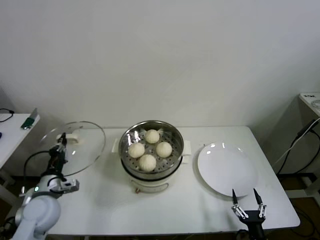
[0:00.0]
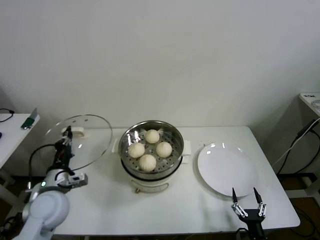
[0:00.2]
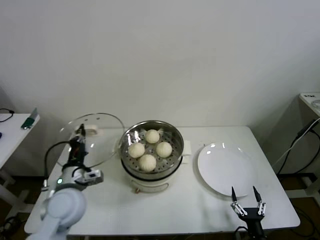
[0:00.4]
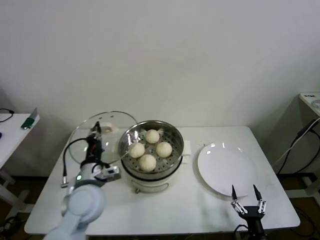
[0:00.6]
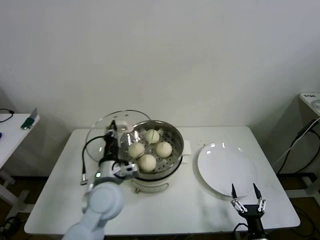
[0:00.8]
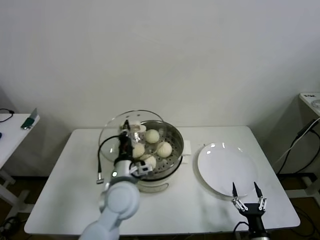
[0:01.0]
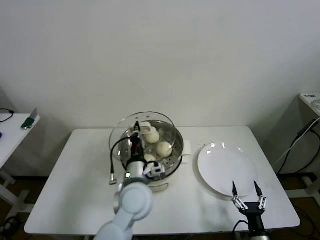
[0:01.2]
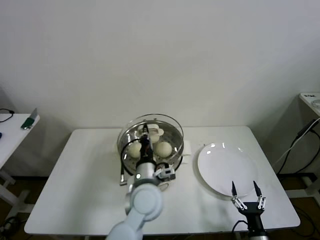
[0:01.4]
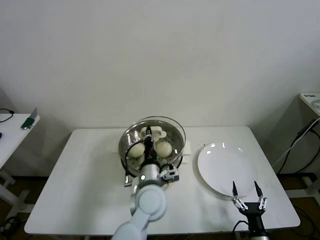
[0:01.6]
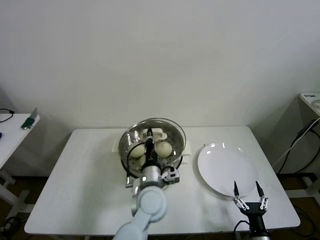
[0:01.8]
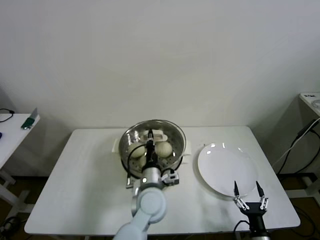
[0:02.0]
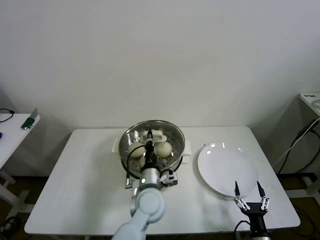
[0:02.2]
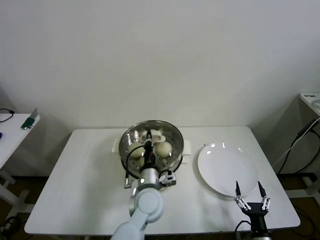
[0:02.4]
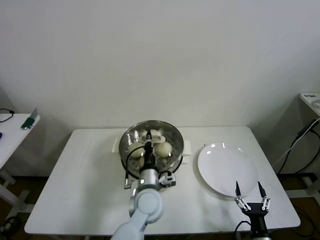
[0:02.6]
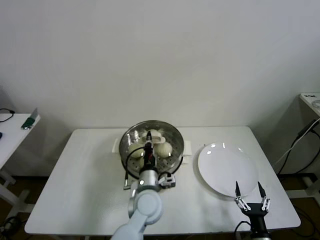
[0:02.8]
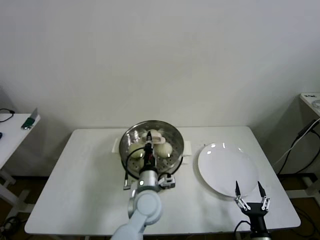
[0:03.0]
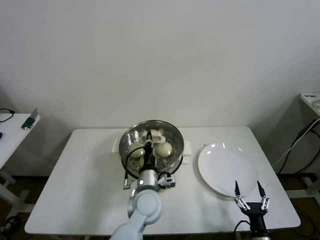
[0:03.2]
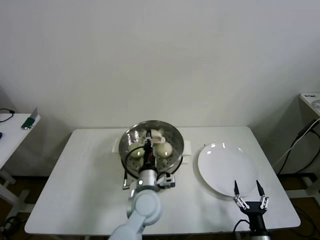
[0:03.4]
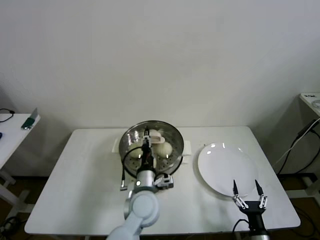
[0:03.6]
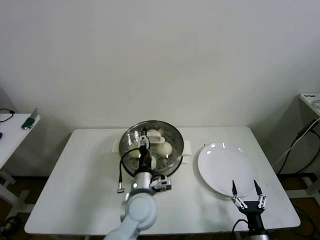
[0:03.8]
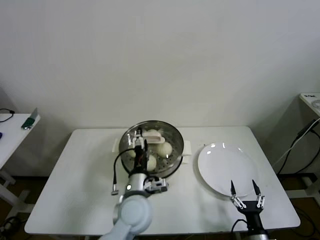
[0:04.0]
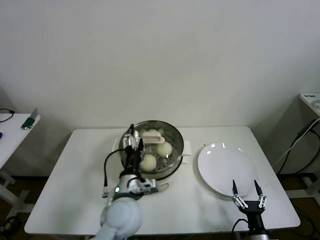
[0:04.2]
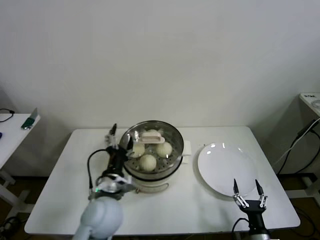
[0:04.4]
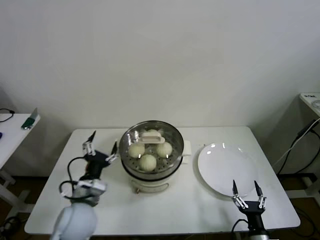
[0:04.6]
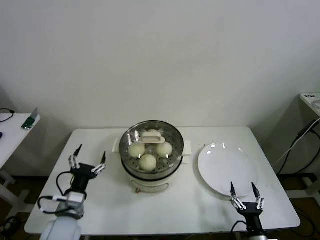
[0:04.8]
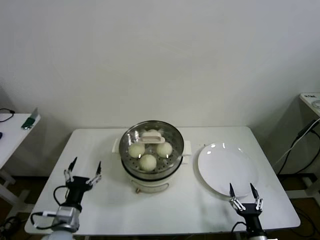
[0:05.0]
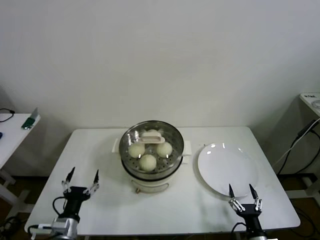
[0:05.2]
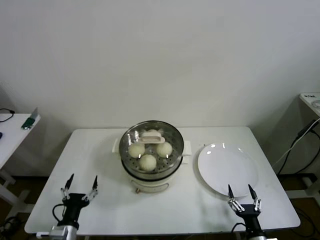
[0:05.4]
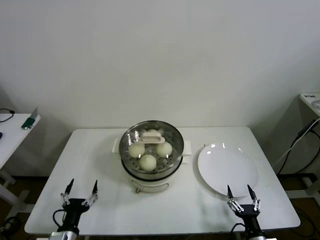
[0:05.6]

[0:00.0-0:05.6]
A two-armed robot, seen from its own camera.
Step, 0:00.0 to 0:03.2: Place the pot lid on the steamer with left gripper.
0:00.0 to 0:01.4: The left gripper is displaced to the right by some 30 cm.
0:01.4 to 0:02.8: The left gripper moves downward, about 5 cm.
0:02.8 to 0:04.2: The left gripper moves some 10 cm, and opens its fingers.
0:04.2 to 0:05.6: The left gripper shifts about 30 cm to the left, downward and backward.
